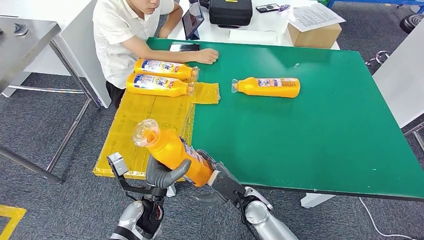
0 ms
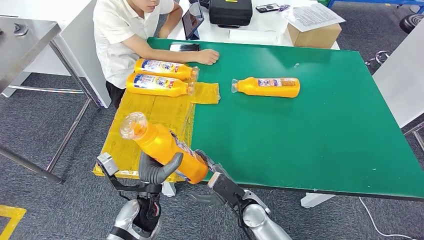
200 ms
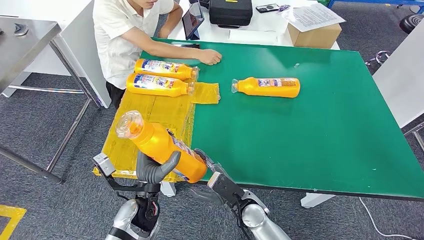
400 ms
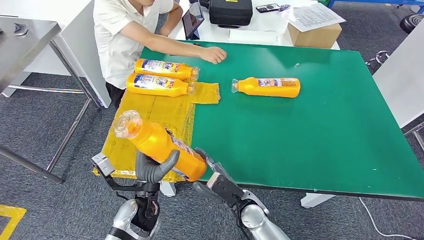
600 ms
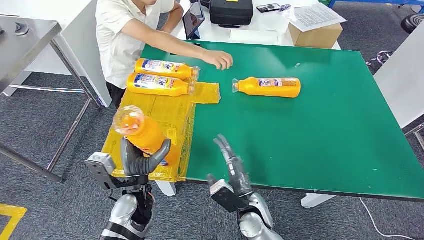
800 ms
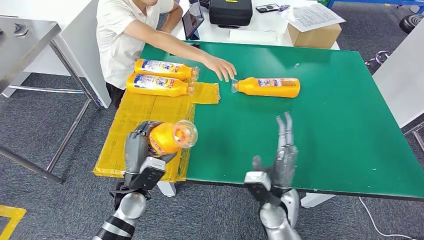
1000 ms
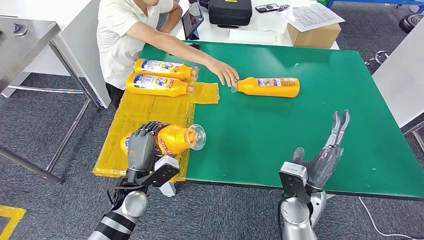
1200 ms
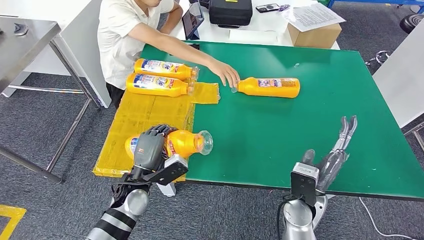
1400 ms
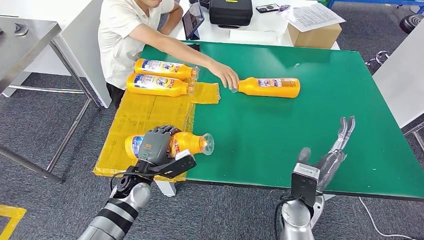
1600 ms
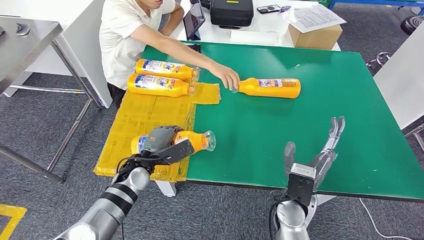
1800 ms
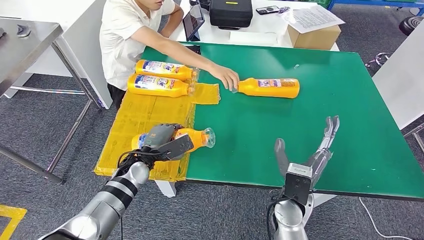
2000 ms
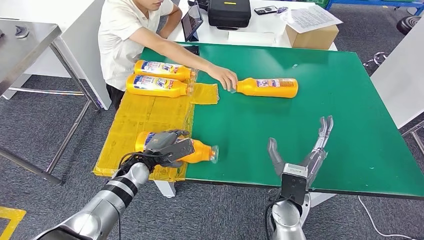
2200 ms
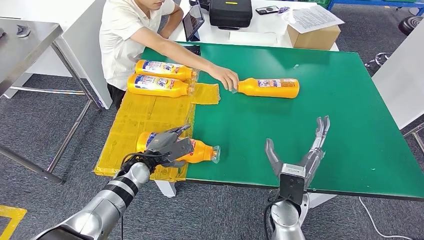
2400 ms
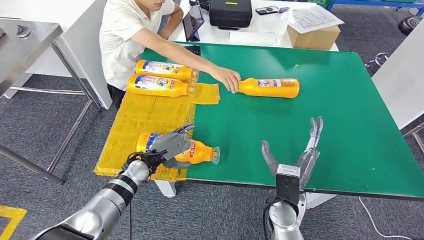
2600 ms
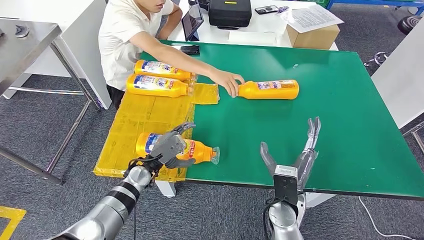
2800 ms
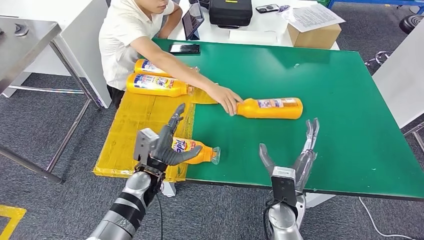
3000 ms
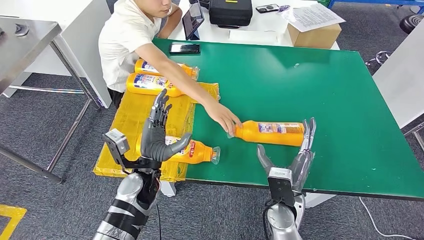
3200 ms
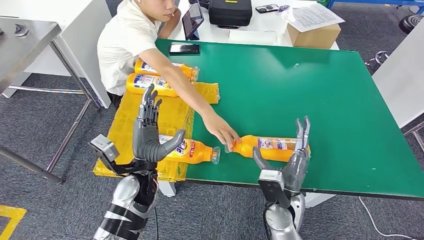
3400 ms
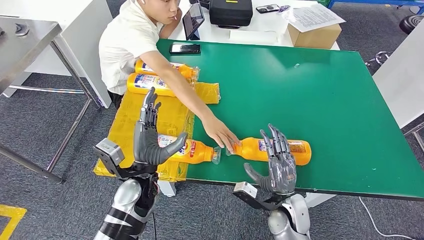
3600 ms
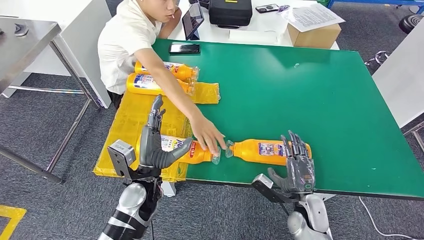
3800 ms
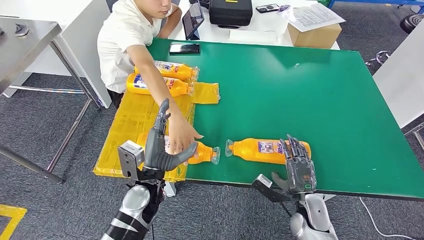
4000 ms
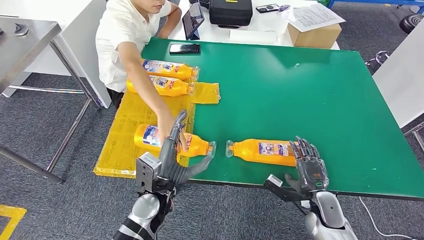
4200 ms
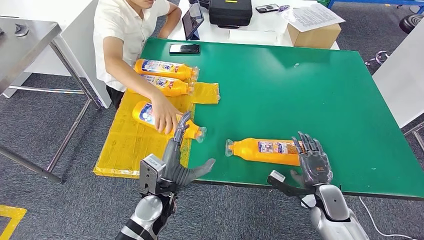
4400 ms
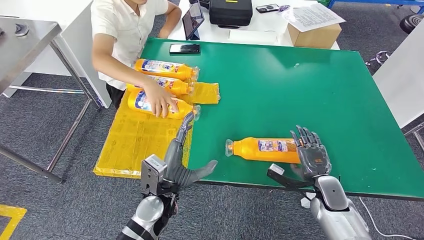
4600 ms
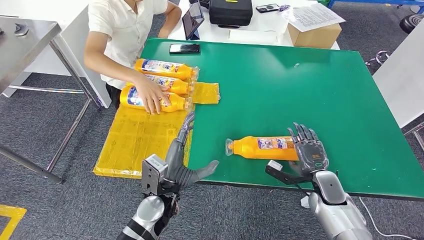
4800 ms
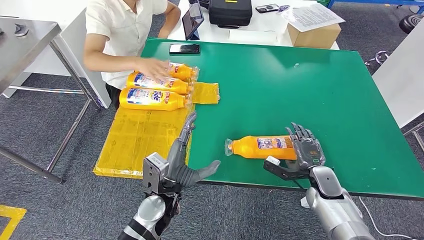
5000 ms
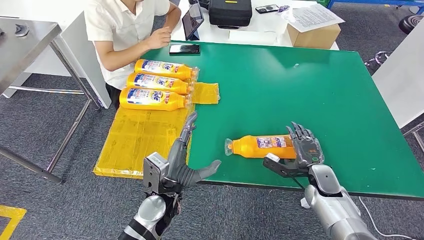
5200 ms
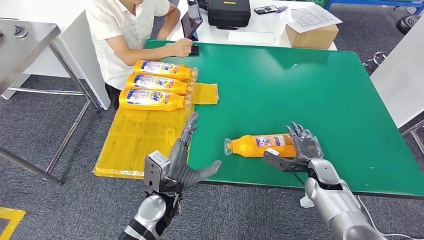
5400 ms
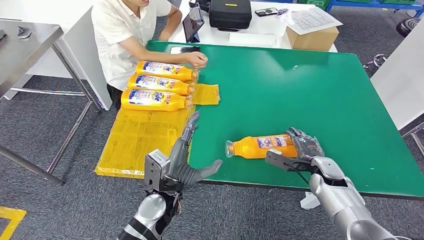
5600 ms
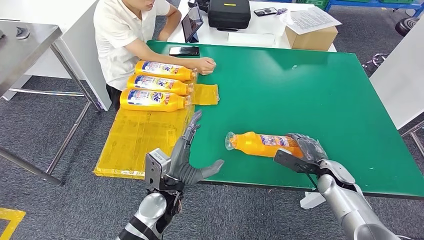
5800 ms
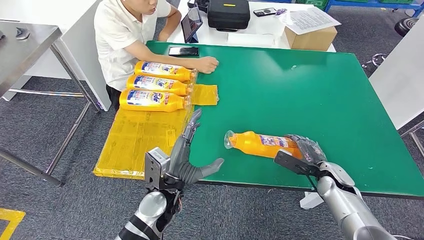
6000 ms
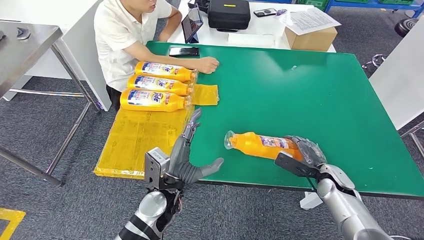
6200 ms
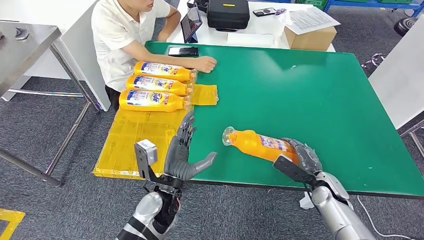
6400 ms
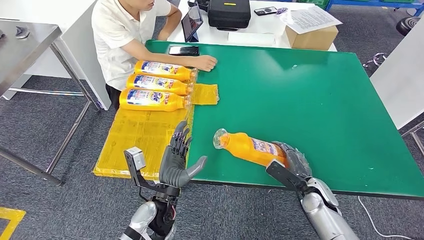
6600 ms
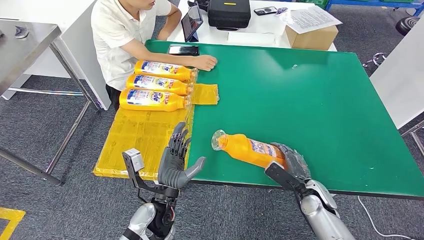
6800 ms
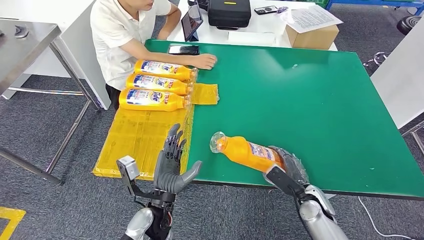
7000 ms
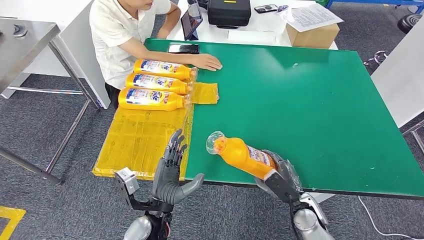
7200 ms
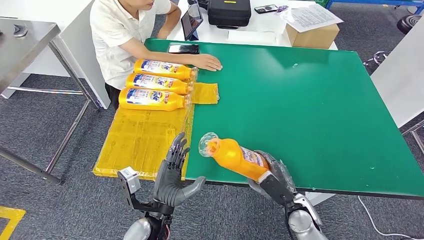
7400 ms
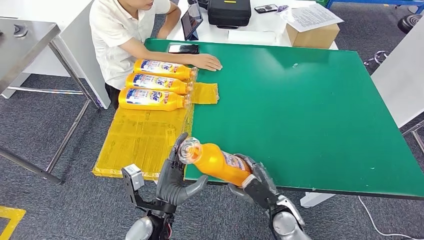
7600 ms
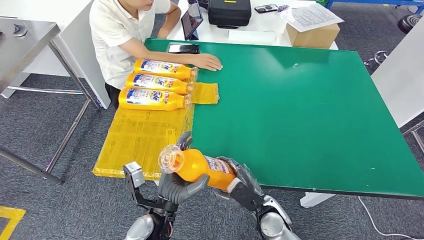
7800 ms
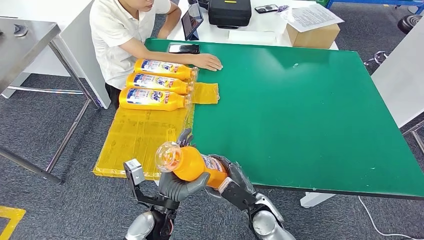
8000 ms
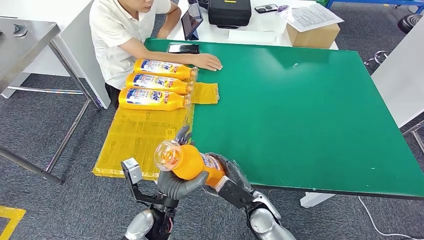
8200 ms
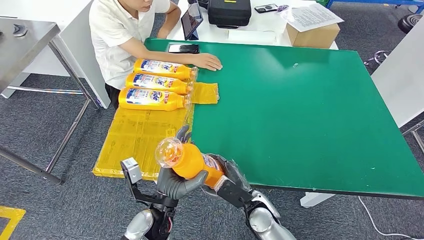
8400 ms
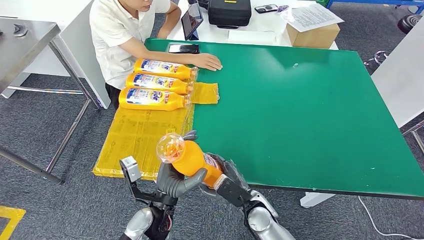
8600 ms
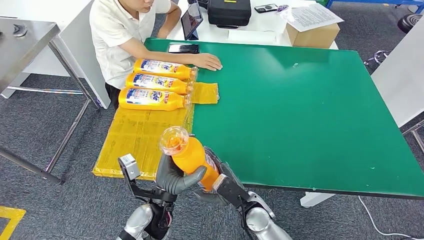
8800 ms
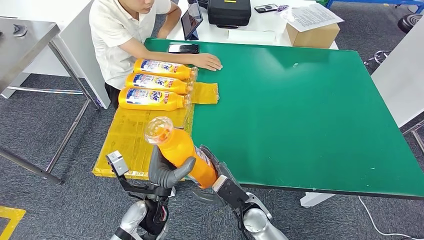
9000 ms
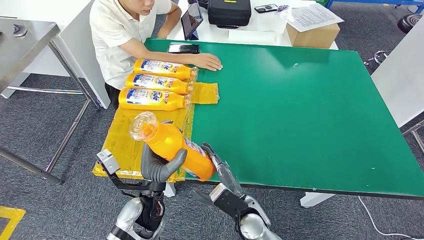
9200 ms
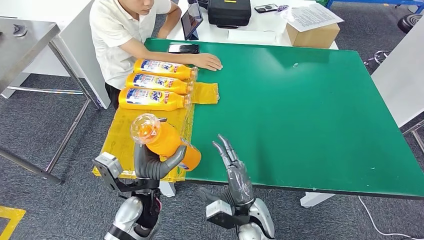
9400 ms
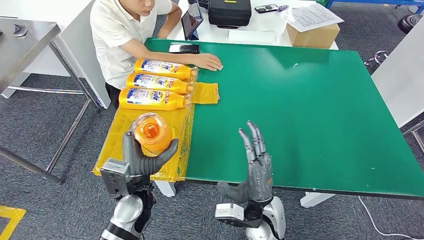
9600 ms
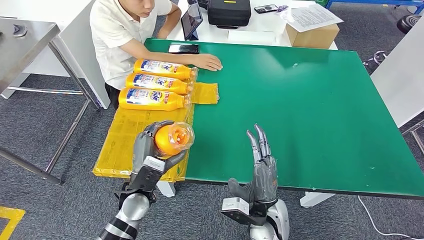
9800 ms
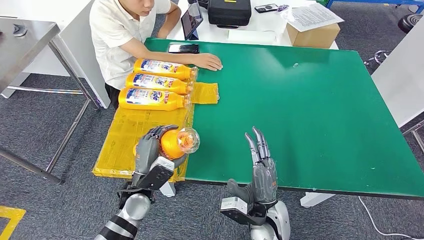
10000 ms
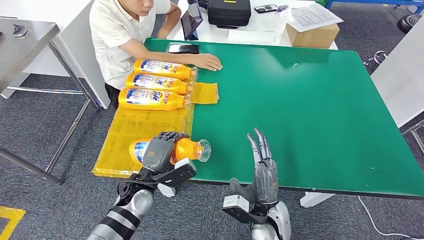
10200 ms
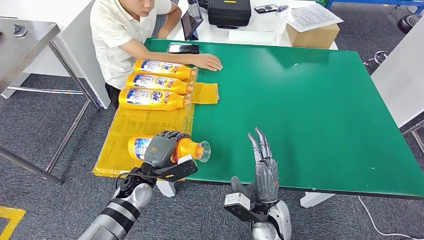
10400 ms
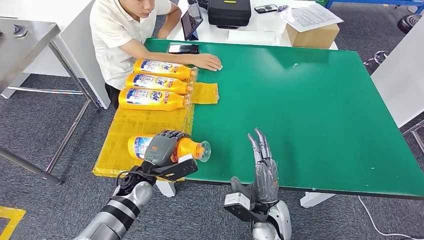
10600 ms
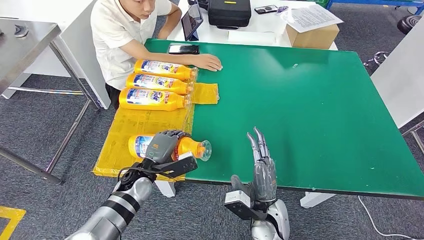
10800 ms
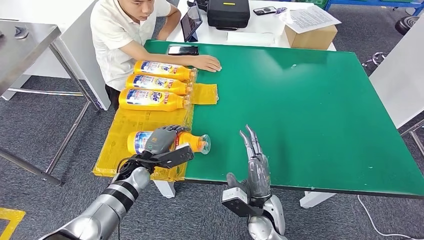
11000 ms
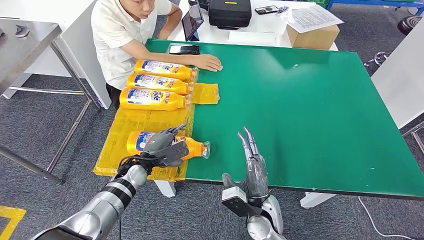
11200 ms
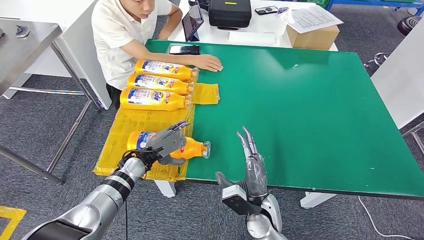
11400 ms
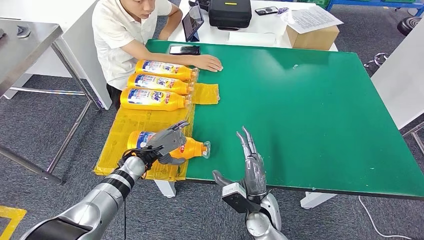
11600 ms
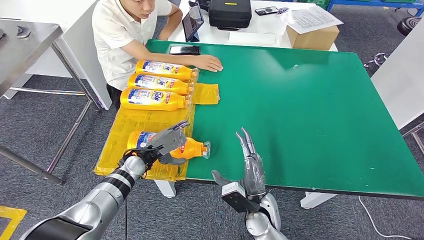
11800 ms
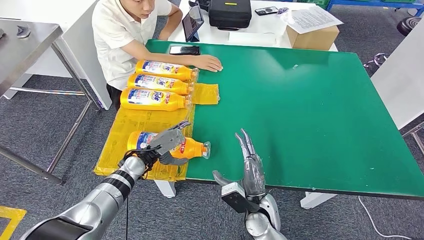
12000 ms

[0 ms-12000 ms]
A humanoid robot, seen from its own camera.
Step, 800 ms to 3200 ms: Flip the bottle to face forward.
Step, 3400 ms to 9400 ms: Pick up the bottle from the table.
Step, 9600 ms to 12000 ms: Flip the bottle to face forward.
0 ms to 1600 ms: The right hand moves to the right and upward, roughly 15 cm. The left hand goes roughly 5 cm forward.
7600 ms to 9000 ms: The right hand moves to the left, about 10 cm.
9000 ms to 10400 ms: The right hand ends up approximately 5 cm from where it was; the left hand travels forward and to the left by approximately 10 cm.
10400 ms to 12000 ms: The left hand travels forward by some 5 cm.
